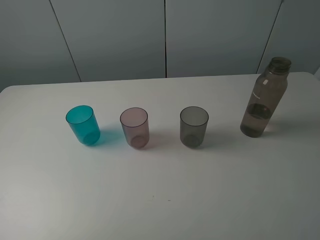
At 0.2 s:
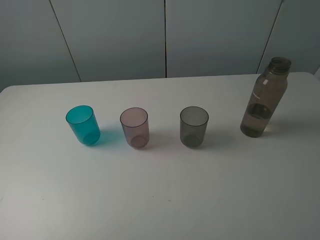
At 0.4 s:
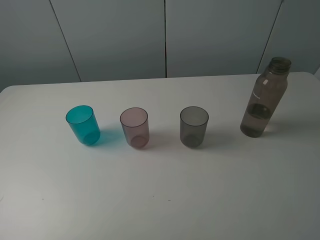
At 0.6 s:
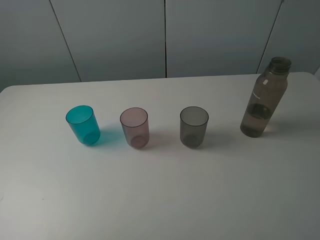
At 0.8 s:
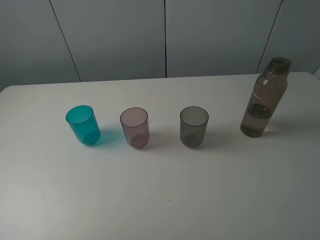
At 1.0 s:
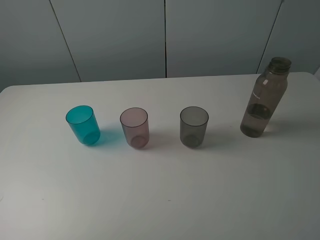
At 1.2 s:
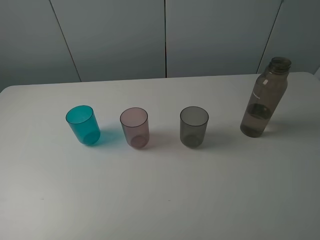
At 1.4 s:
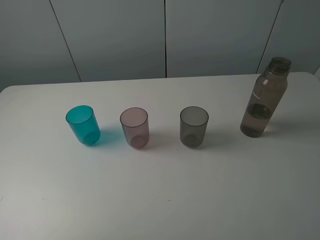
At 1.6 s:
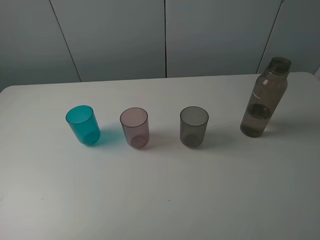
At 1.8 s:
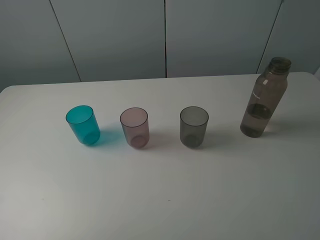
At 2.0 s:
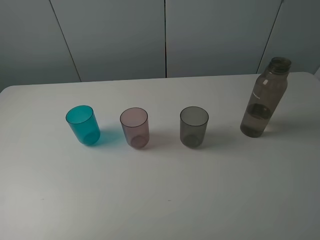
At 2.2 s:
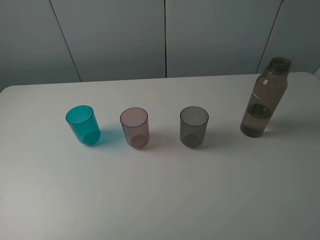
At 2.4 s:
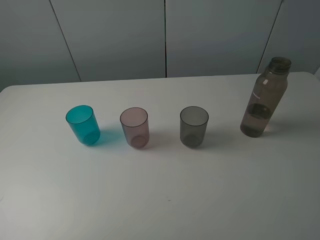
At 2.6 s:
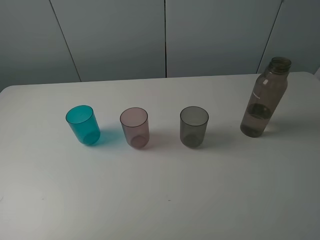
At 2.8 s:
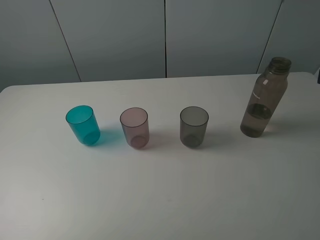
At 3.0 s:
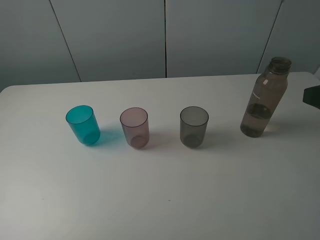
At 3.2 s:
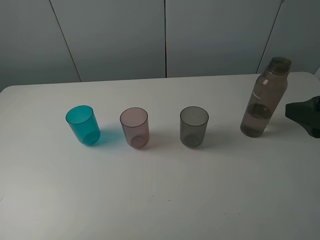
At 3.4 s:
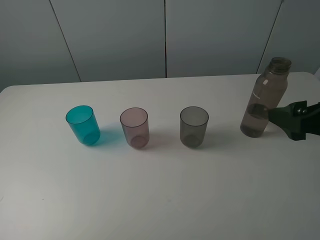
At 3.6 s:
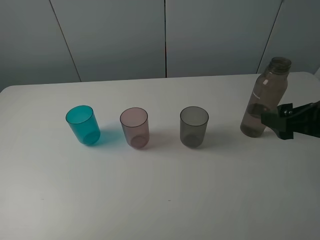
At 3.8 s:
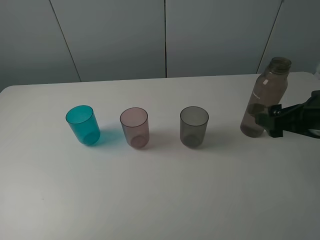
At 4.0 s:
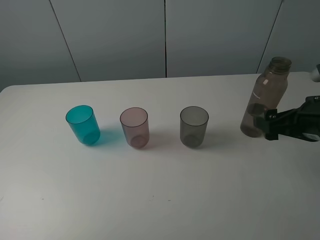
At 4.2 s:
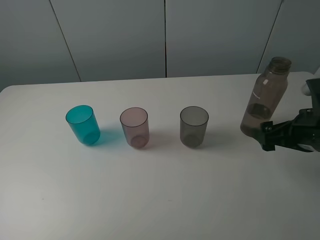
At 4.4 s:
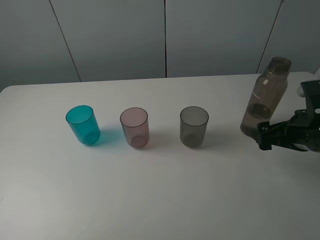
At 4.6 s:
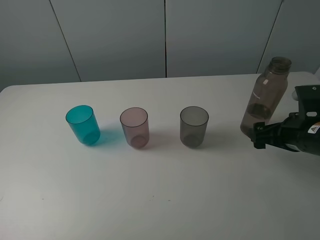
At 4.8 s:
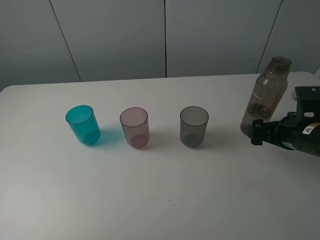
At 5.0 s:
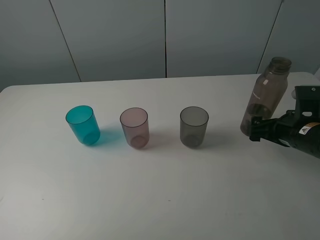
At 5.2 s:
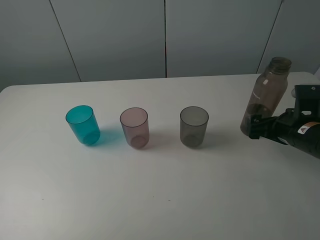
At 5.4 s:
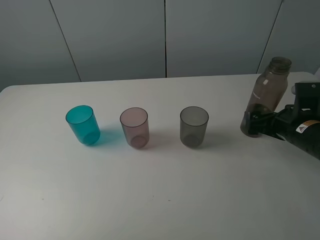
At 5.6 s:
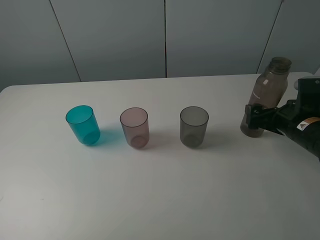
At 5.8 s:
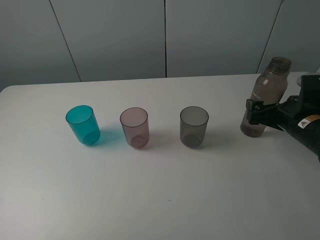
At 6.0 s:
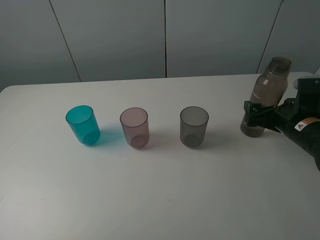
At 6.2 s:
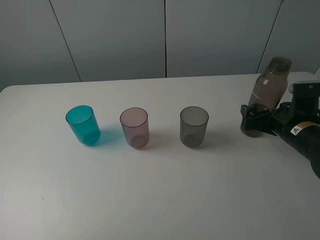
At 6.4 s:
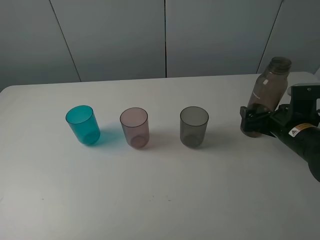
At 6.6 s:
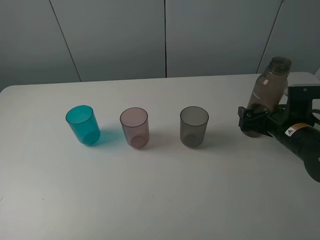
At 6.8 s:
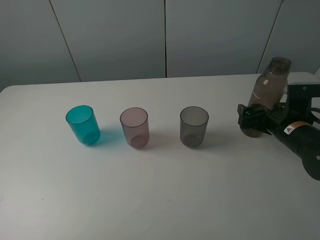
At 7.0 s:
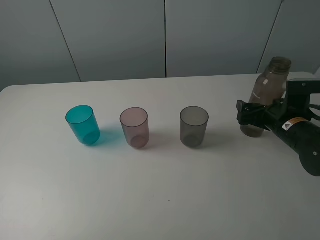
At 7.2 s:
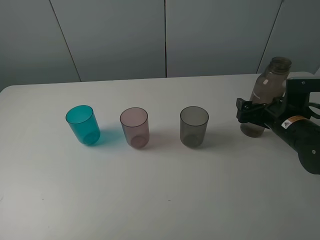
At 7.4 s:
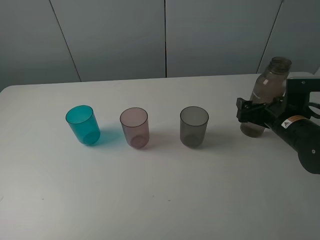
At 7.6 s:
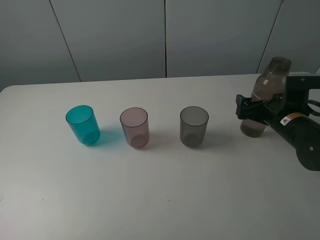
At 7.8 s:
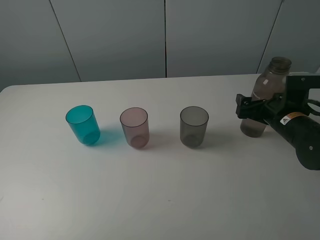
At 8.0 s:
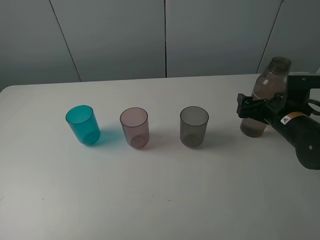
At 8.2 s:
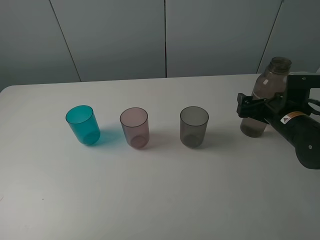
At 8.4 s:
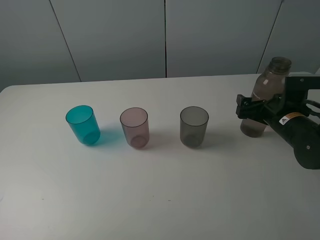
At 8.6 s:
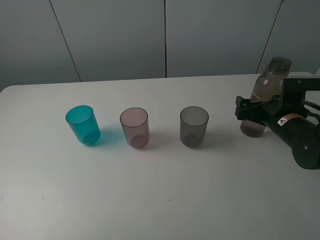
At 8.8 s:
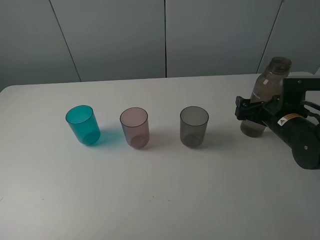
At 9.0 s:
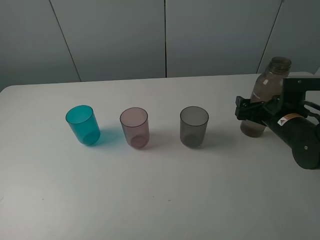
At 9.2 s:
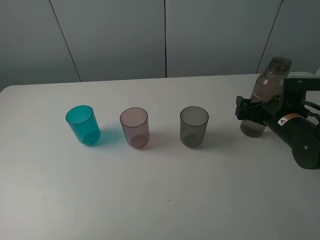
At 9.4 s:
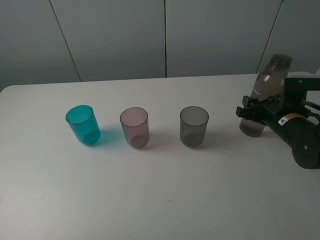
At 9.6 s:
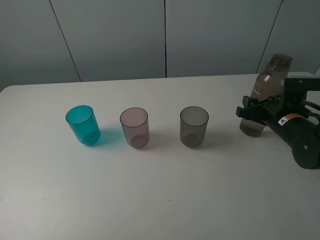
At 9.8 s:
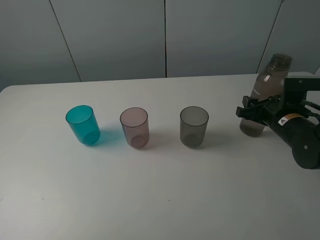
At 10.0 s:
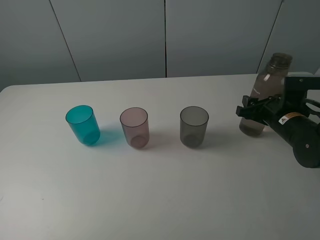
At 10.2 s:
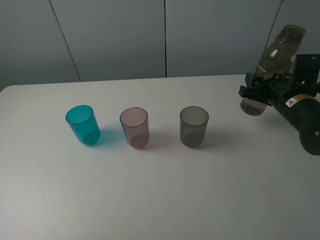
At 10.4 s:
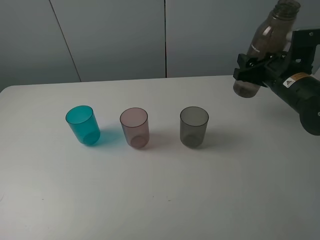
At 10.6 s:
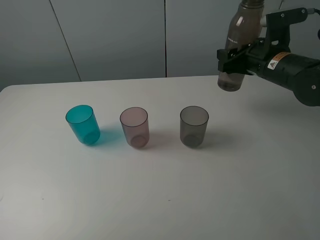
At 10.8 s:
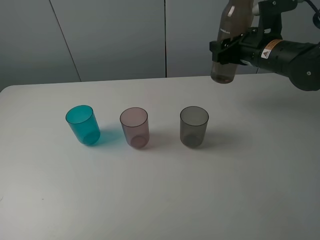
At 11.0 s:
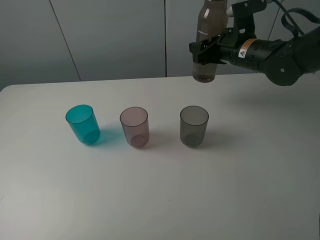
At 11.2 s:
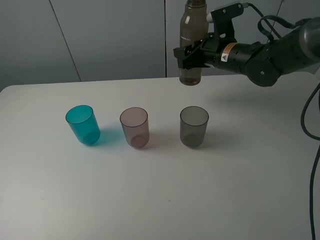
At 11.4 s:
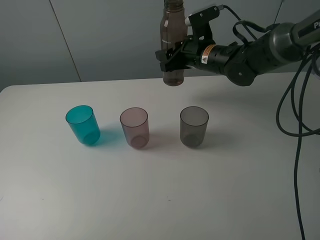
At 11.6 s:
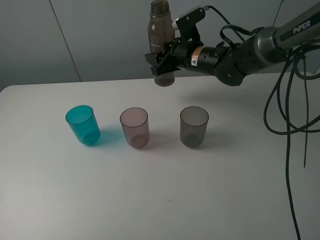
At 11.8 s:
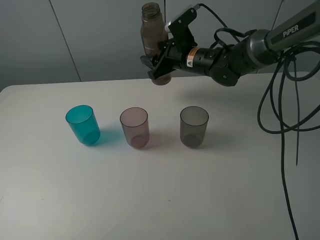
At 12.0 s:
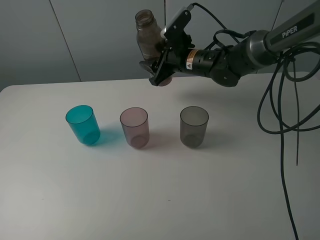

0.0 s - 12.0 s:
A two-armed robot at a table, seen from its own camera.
Task of the whole recording: pick up the bottle filled with water and pour water into the middle cup of the three cups.
Step, 0.0 s - 9.8 s: Grasp the brown bottle with the right gripper.
0.0 s - 1.6 s: Both grippers stay about where they are.
3.0 s - 4.4 s: The right gripper heads downward and forward, covering about 15 cm.
4.4 s - 6.0 s: The right gripper changes place by some 5 cm.
6.0 s - 7.6 s: The grippers move only a little.
7.6 s - 9.0 s: The two grippers keep their place.
9.0 s - 10.4 s: The right gripper heads upward, covering some 10 cm, and closes up.
10.4 s - 12.0 s: The right gripper travels to the left and forward by some 20 cm.

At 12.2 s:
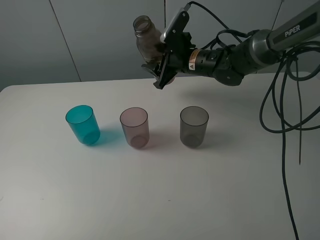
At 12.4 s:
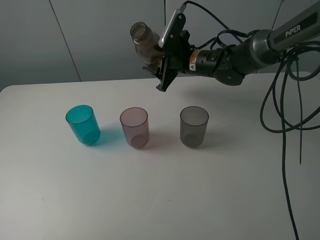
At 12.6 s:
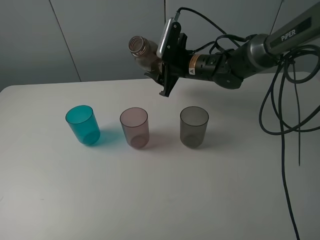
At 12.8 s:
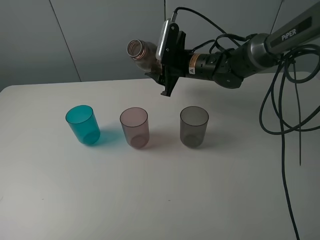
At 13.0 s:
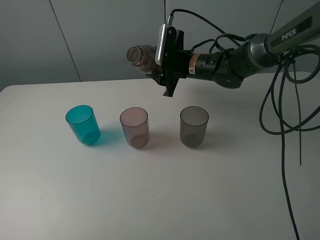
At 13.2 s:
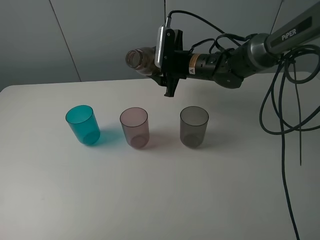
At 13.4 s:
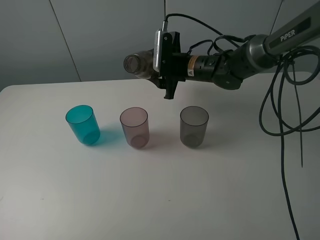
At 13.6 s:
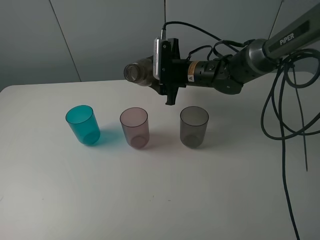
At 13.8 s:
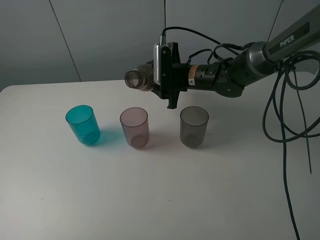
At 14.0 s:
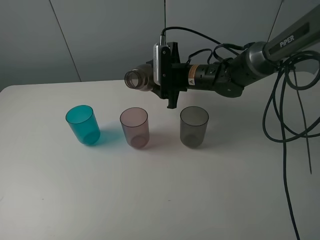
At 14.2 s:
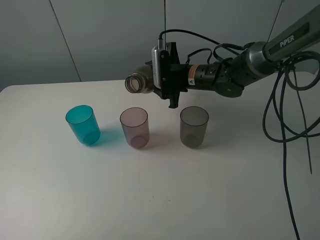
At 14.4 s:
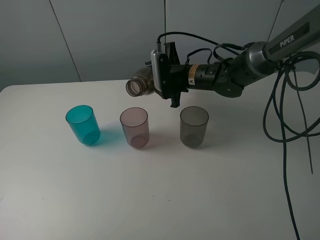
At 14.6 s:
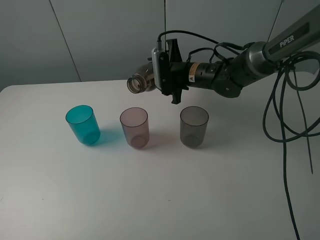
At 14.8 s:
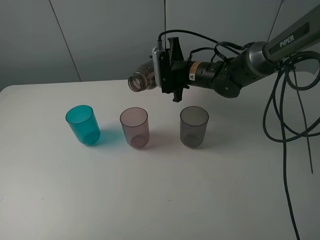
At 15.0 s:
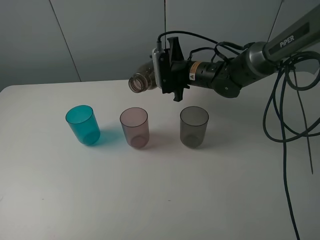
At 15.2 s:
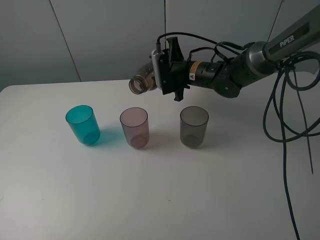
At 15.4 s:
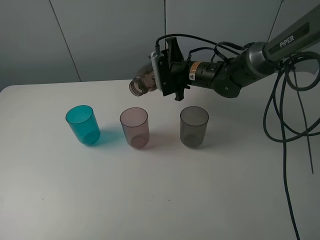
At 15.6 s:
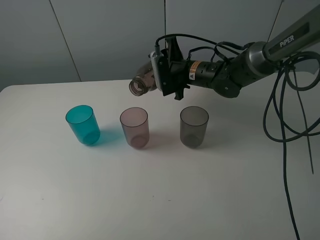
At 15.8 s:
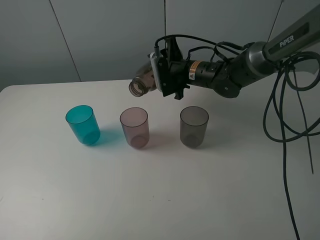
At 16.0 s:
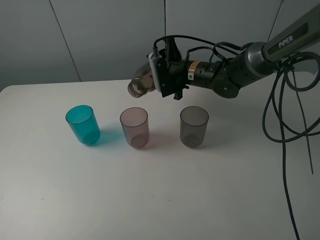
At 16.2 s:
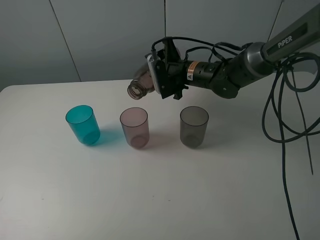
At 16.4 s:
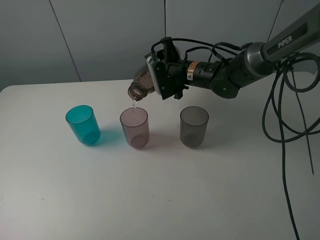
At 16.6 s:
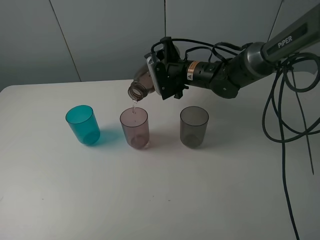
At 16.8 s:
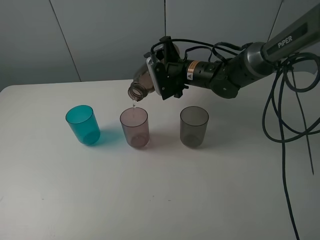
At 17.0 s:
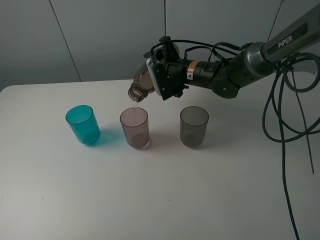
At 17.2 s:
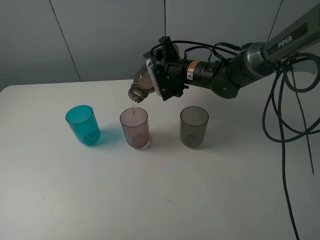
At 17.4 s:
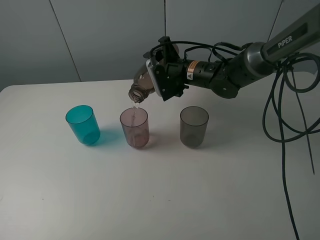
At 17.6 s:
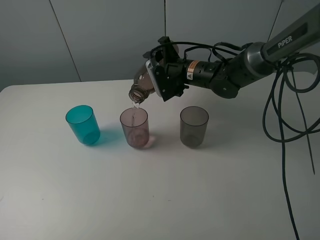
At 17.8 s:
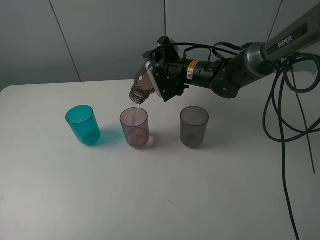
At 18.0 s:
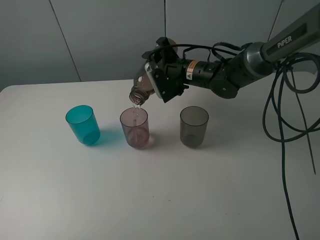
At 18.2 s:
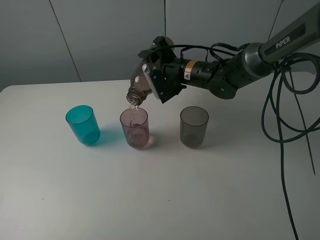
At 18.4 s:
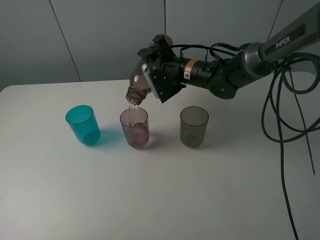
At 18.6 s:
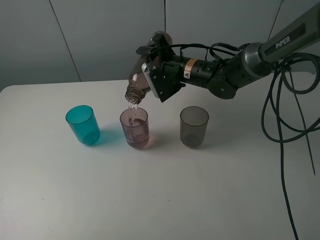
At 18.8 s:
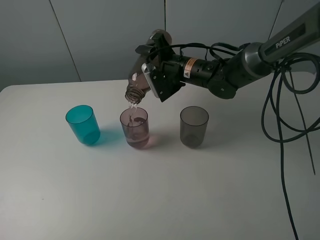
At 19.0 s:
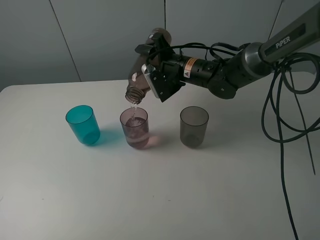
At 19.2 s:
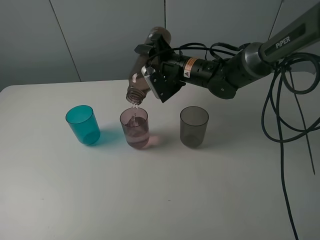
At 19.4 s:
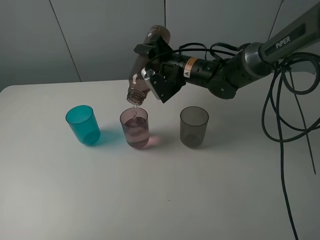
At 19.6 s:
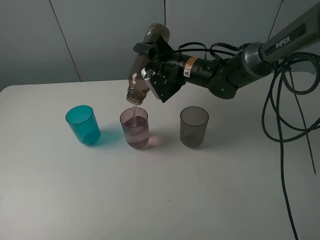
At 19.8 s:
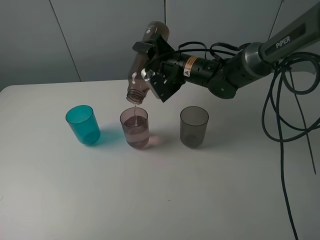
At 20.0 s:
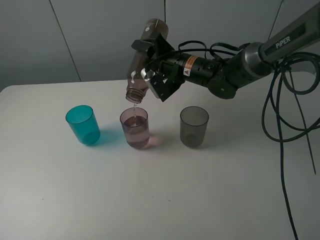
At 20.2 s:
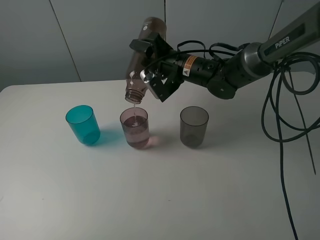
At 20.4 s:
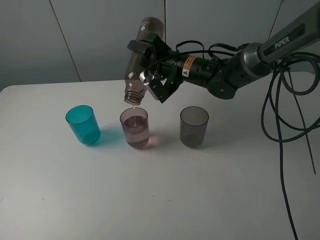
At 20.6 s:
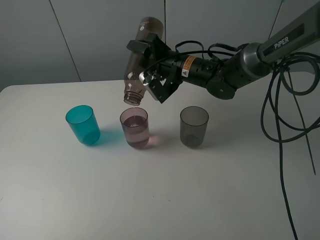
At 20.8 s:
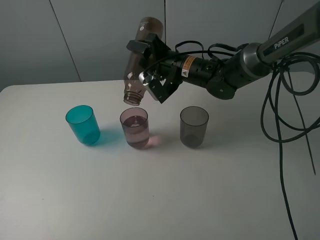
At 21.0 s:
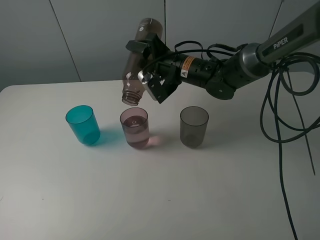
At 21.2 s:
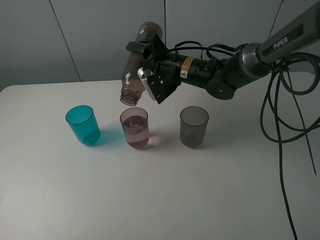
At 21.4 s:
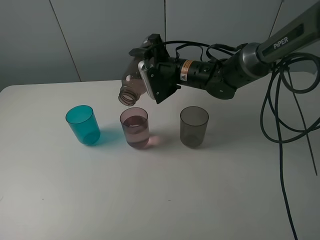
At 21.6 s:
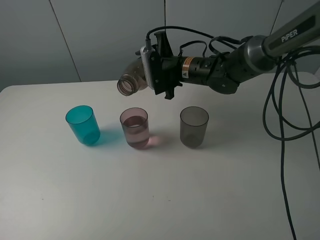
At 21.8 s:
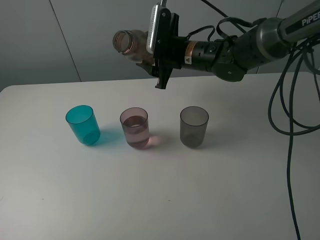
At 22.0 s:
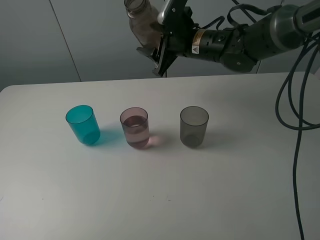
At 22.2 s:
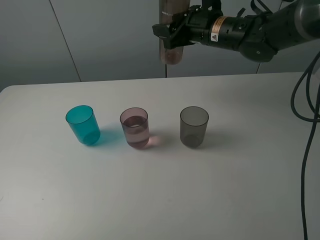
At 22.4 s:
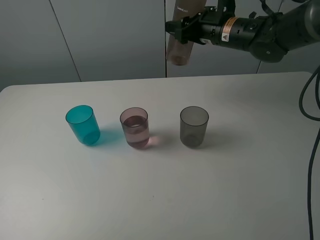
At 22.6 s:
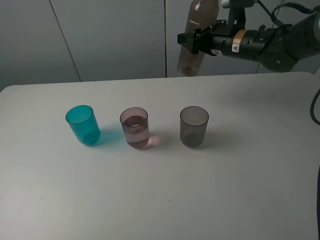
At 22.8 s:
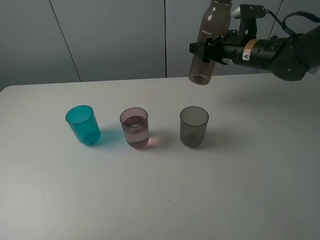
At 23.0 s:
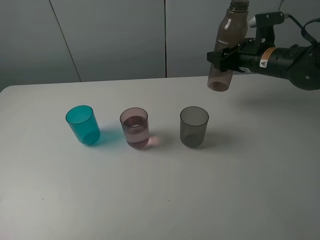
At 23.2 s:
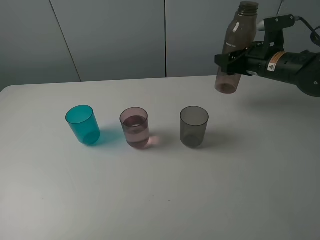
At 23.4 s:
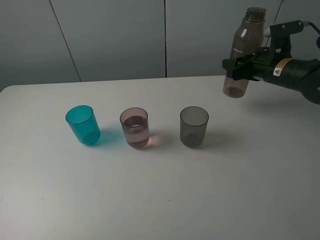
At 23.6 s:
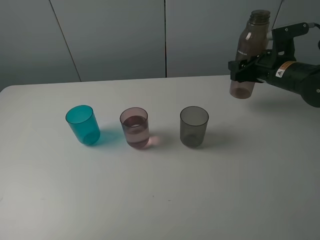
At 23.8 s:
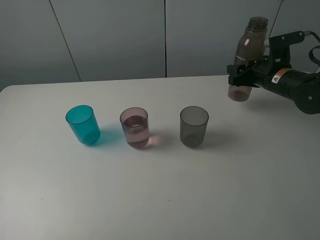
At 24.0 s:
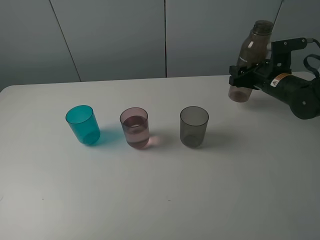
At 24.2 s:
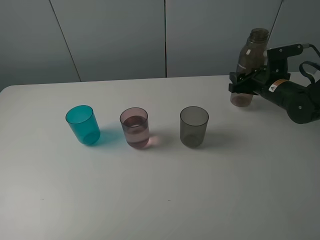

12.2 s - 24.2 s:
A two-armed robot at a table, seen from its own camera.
Task of the whole recording: pick up the bottle filled with water and pour water into the middle cup of the three cups.
Step, 12.2 s - 21.4 s: Pour water from brown bottle to red cup with the right gripper.
13.8 s - 15.2 s: The grippers make only small movements.
15.2 s - 16.6 s: The grippers stay close to where they were, moving slightly.
16.6 s - 18.2 s: The grippers stay close to where they were, moving slightly.
18.2 s - 19.8 s: The grippers move only a little.
19.8 s - 21.2 s: The grippers make only small movements.
21.2 s - 22.6 s: The right gripper moves to the right, some 10 cm.
22.6 s - 24.2 s: The right gripper heads to the right and downward, covering about 15 cm.
